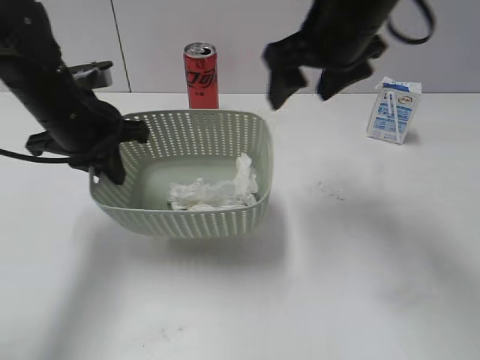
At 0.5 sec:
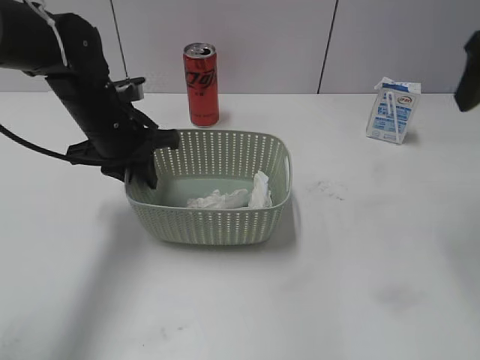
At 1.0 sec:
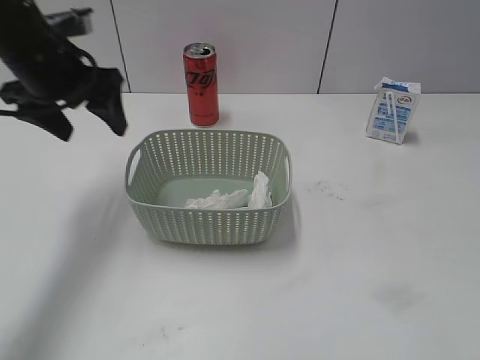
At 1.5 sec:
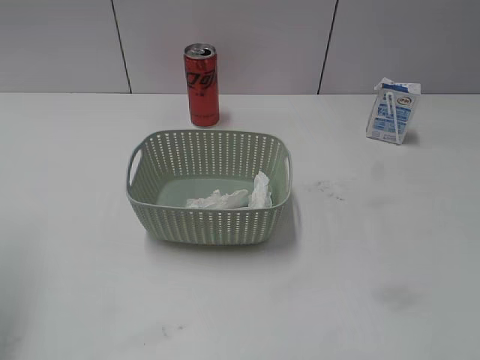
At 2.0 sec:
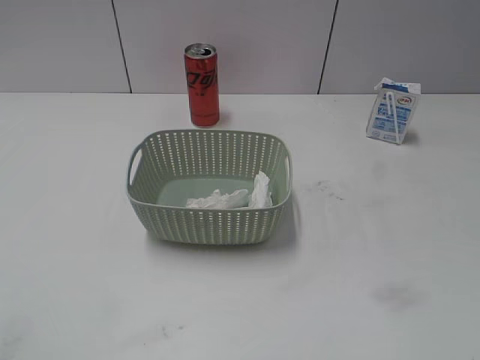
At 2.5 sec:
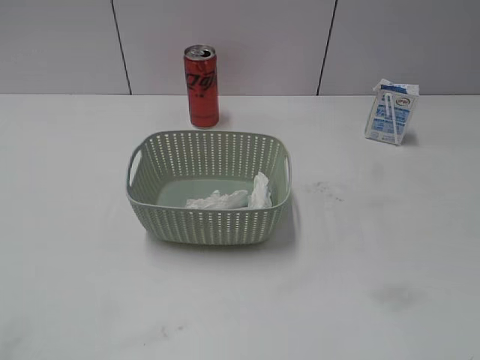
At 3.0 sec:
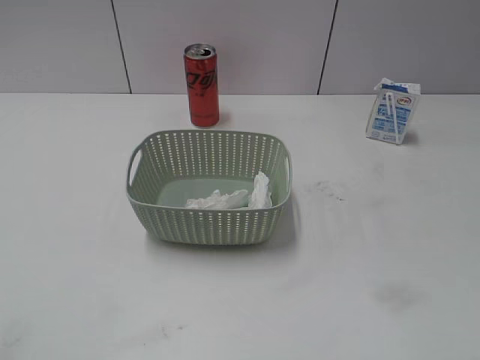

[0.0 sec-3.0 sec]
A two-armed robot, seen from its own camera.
Step, 0.0 sec to 0.5 sec: Place the basket on the table with left gripper.
0.0 sec to 1.5 sec: The right gripper shifts roughly 35 cm backward and to the right, while the left gripper heads upward, to the left and backward, covering about 25 cm, and opens its fingers.
1.5 sec to 3.0 sec: The left gripper is displaced backward by approximately 25 cm.
